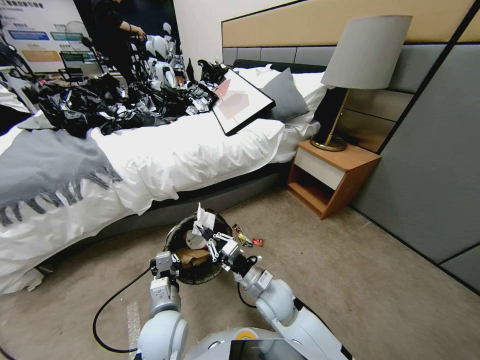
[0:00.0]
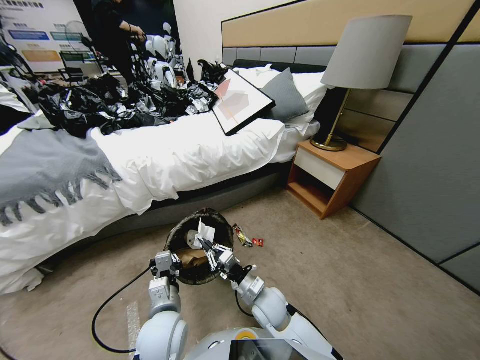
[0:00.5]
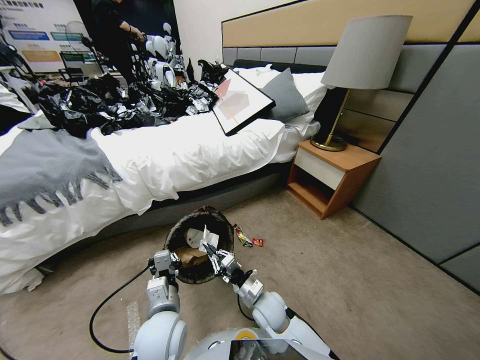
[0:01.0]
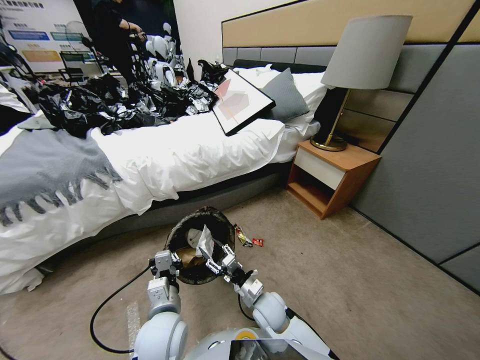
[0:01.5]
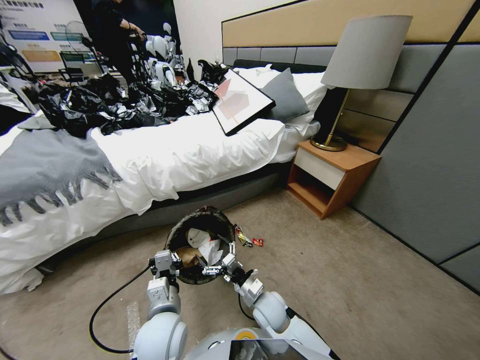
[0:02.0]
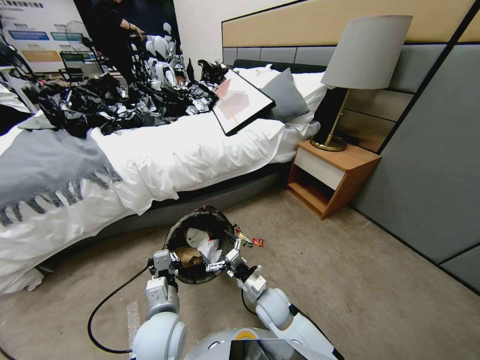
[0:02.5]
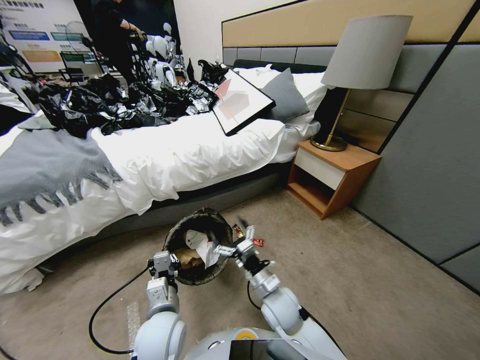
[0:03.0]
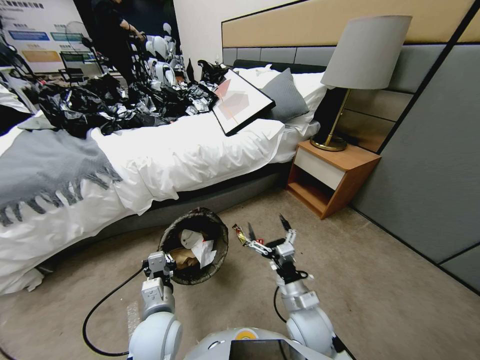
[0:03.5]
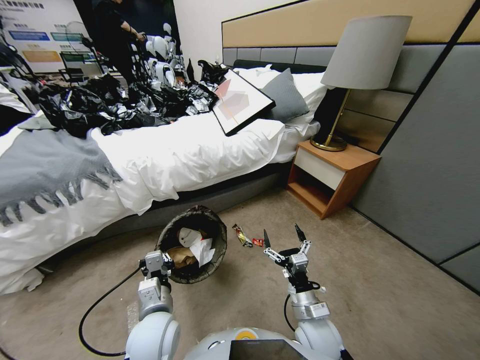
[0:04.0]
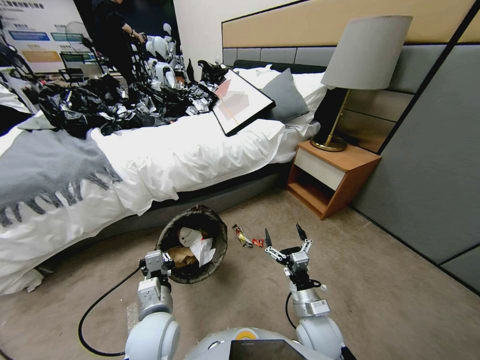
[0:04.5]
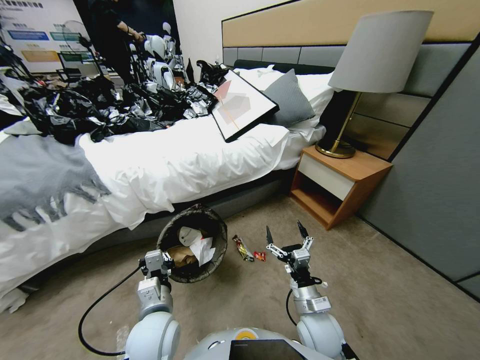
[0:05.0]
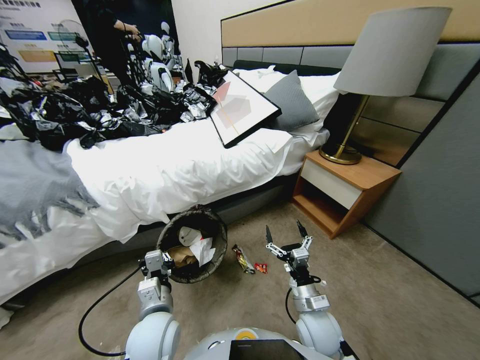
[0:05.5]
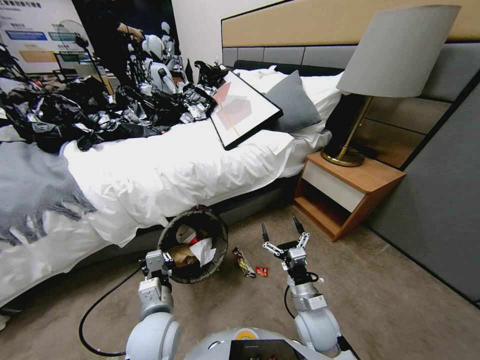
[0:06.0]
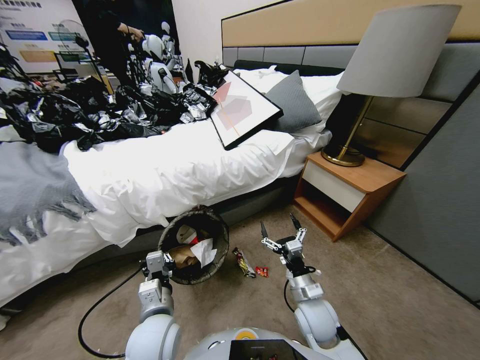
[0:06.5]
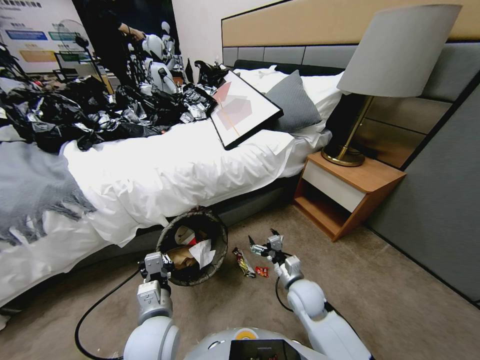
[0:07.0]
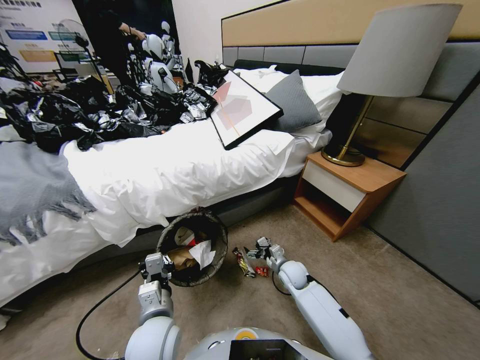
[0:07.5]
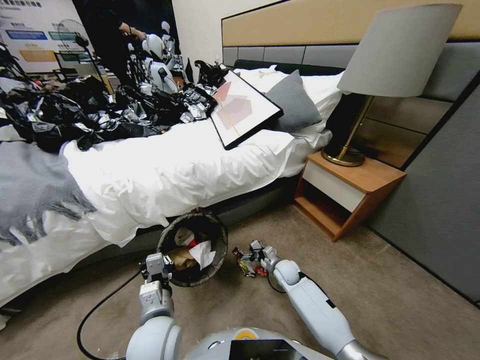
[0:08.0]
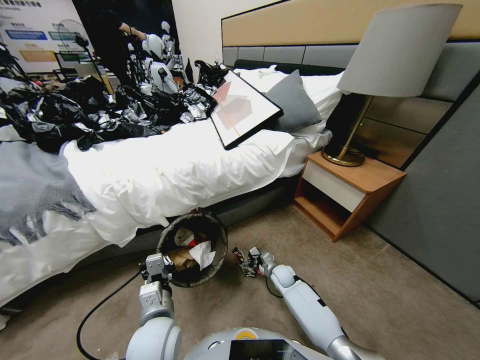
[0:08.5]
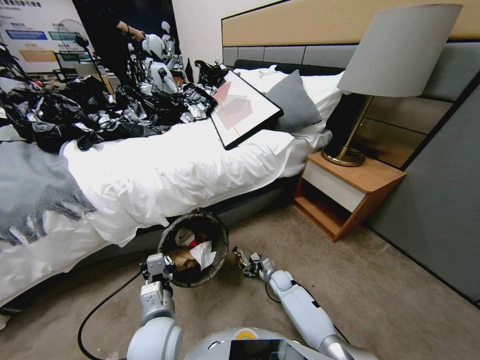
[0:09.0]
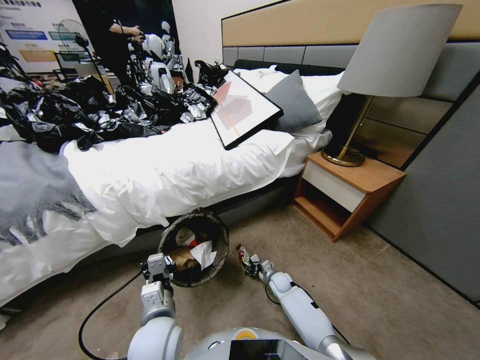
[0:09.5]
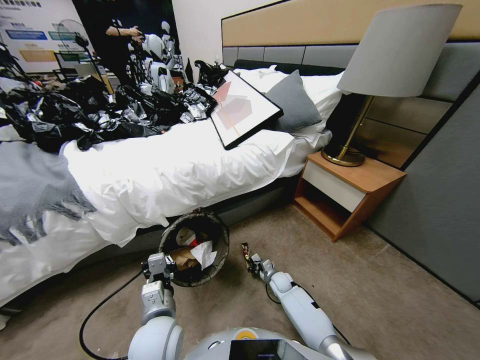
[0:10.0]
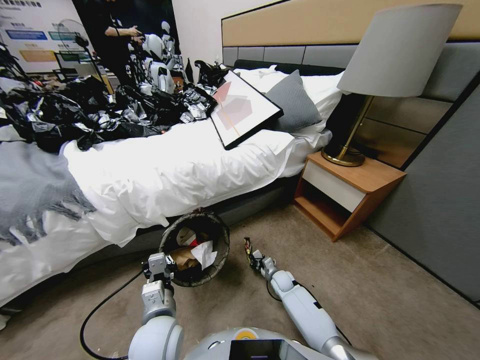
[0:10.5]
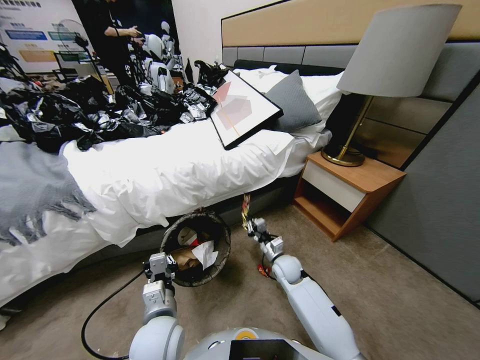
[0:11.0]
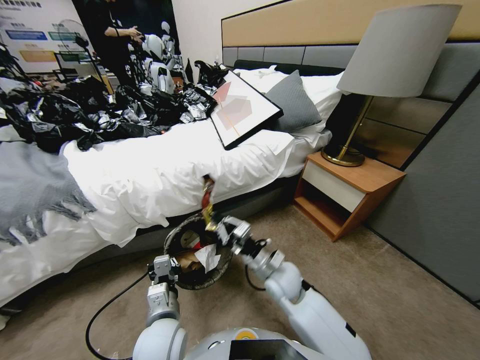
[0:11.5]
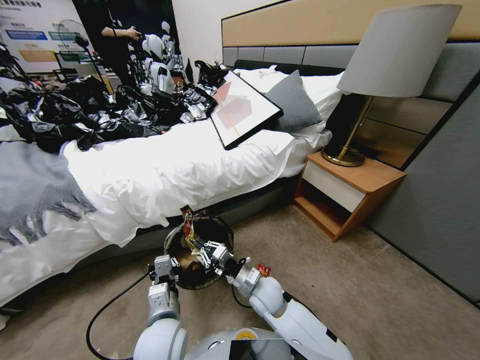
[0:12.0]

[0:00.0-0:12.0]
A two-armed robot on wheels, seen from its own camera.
Task of the whole recording: Pick up the trash bin, then pick up the garbage from the floor and place it into the trash bin.
0:00.0 to 0:02.0: The right gripper goes some 5 cm downward, and opens.
0:02.0 to 0:04.0: The right gripper is displaced to the right, backward and upward by about 15 cm.
0:06.0 to 0:08.0: The right gripper is displaced forward and downward by roughly 20 cm.
0:08.0 to 0:10.0: The right gripper shifts roughly 10 cm downward, and closes up.
0:10.0 to 0:12.0: The right gripper travels upward, to the left and backward by about 25 cm.

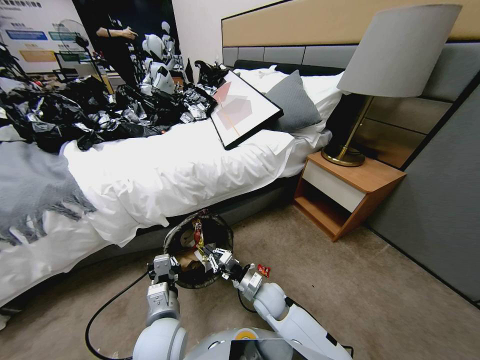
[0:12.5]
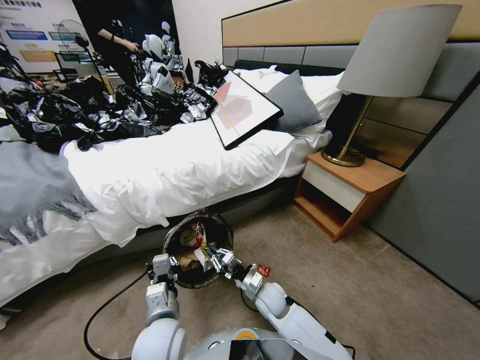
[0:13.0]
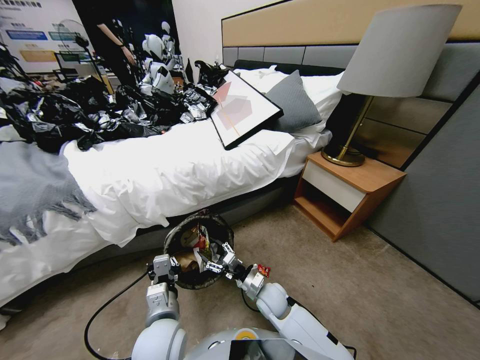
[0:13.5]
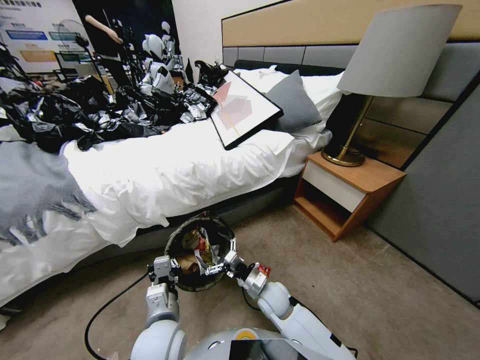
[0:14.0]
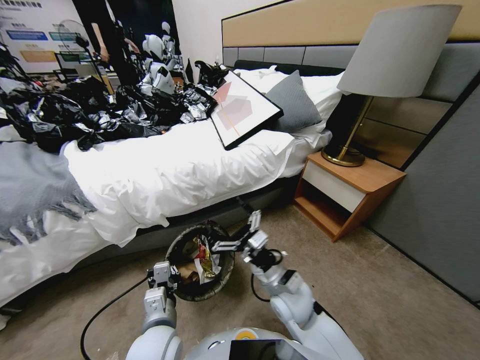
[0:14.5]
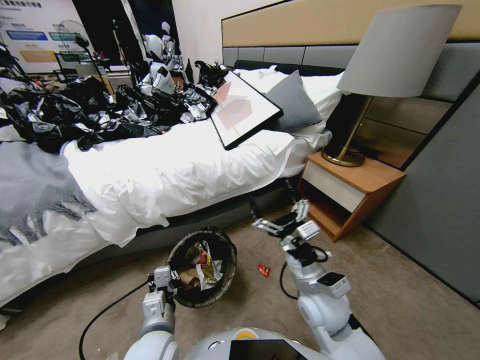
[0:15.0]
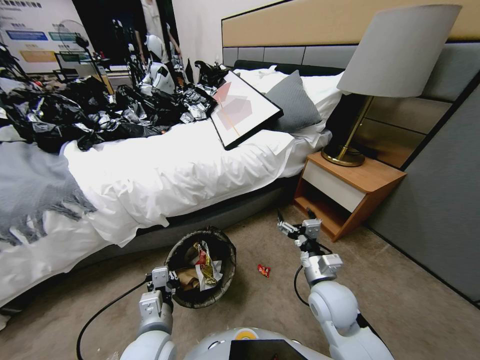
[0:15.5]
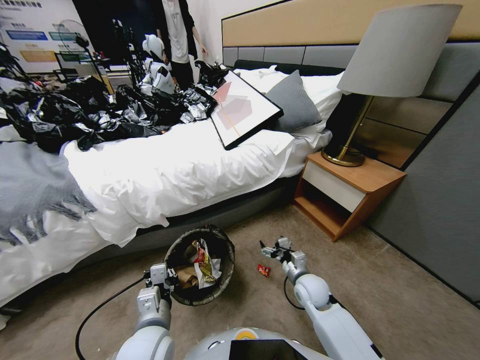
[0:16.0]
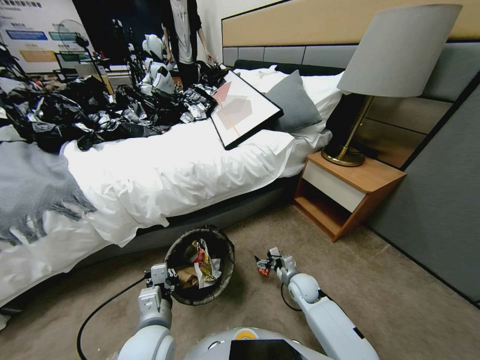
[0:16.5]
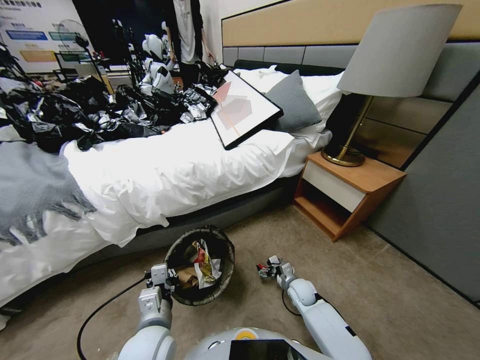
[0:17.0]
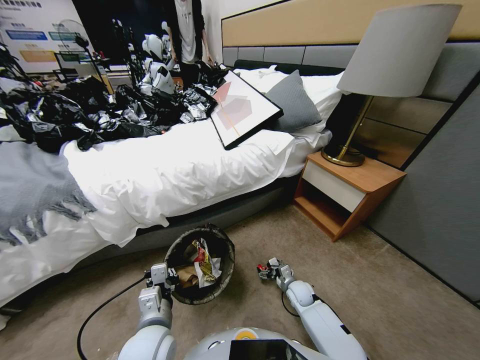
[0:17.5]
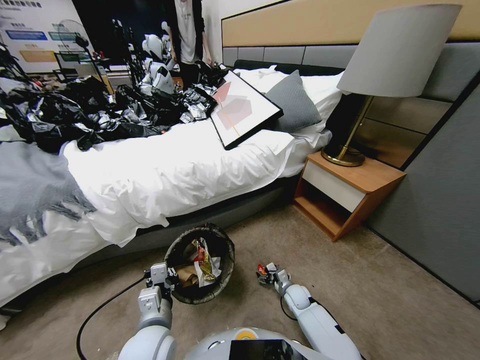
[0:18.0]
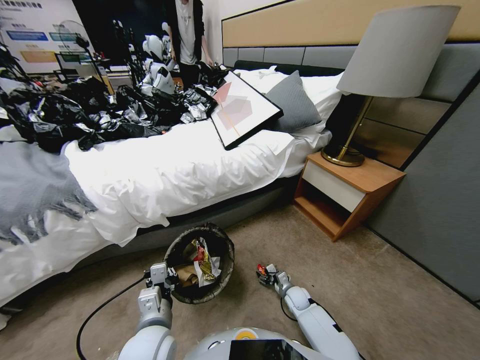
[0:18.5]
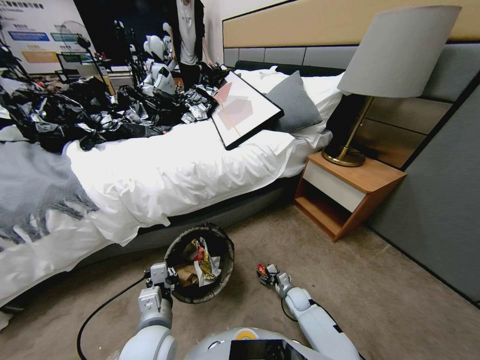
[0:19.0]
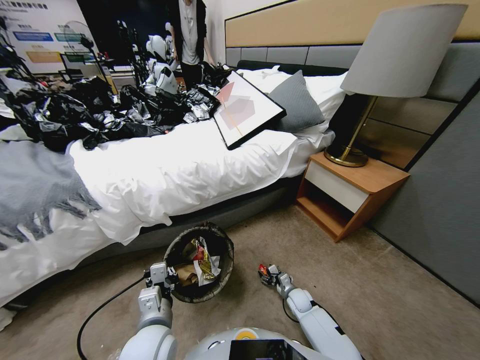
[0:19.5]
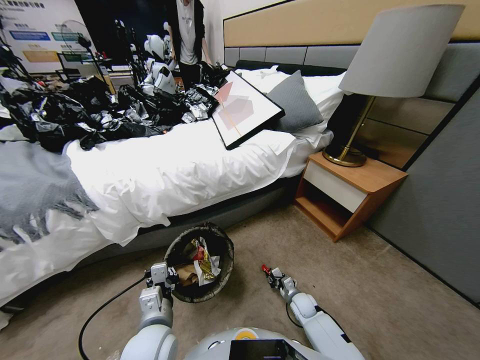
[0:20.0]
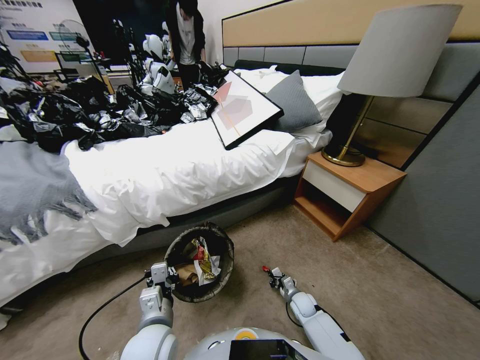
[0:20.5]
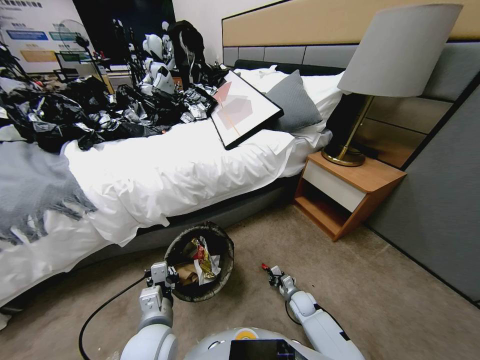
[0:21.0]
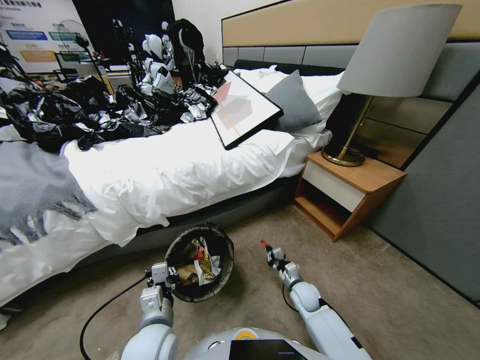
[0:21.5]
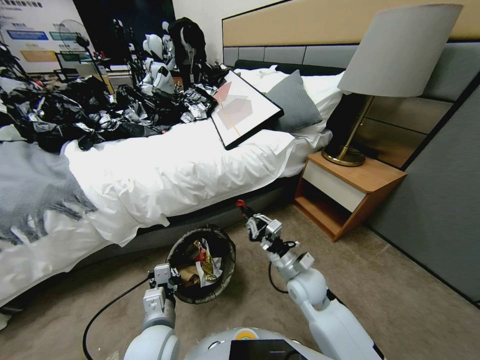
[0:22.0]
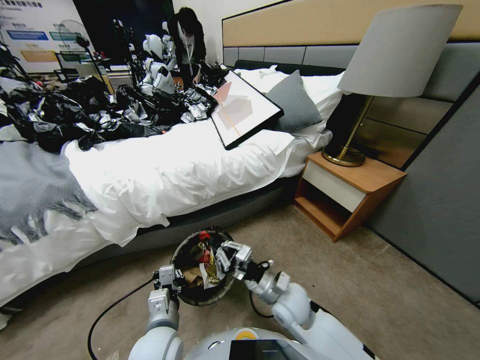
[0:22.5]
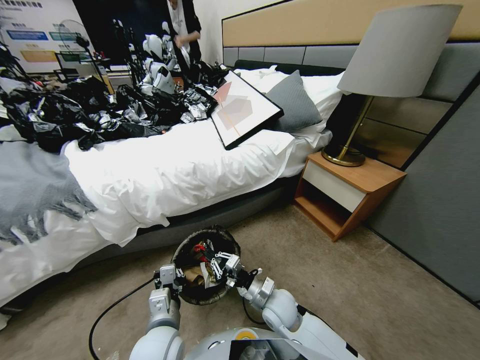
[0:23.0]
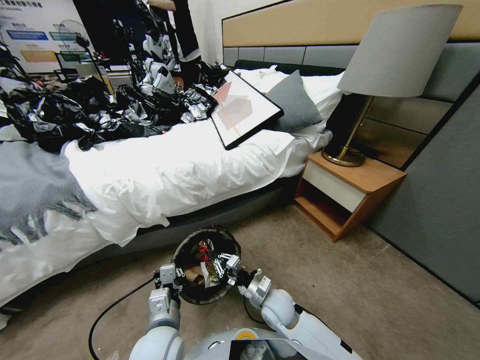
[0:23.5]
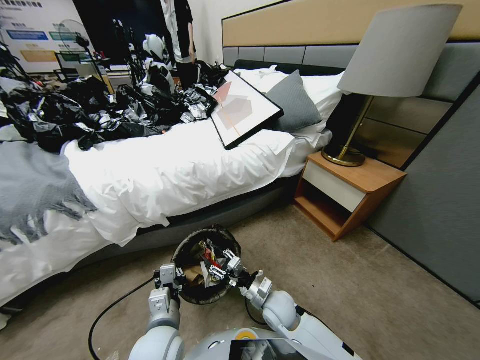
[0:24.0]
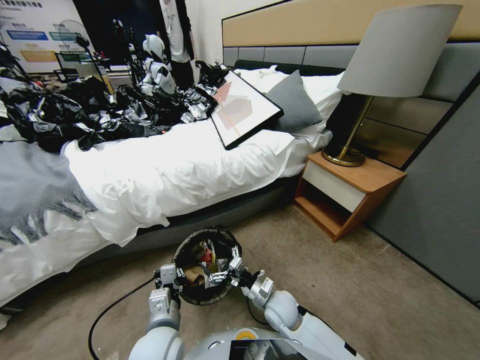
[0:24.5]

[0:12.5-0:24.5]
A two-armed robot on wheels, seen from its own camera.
Task of the whole recording: Pick up the trash bin, then pick up the garbage from the floor and place it into the trash bin.
0:12.5 to 0:14.5: The right gripper moves upward, about 15 cm, and opens its fingers.
0:14.5 to 0:16.5: The right gripper is displaced downward, to the right and forward by roughly 25 cm.
0:16.5 to 0:18.5: The right gripper goes about 10 cm downward.
0:18.5 to 0:20.5: The right gripper closes its fingers.
0:20.5 to 0:22.5: The right gripper heads upward and to the left, covering approximately 25 cm.
0:22.5 to 0:24.5: The right gripper shifts some 5 cm downward, and opens.

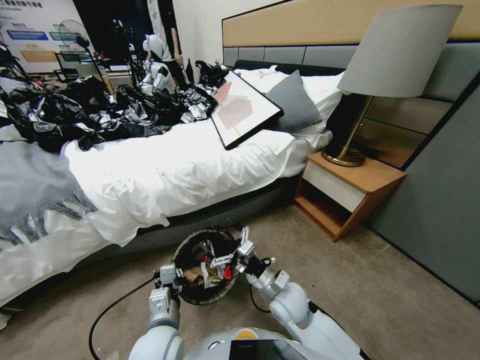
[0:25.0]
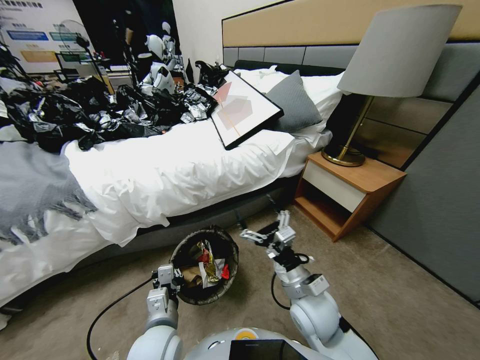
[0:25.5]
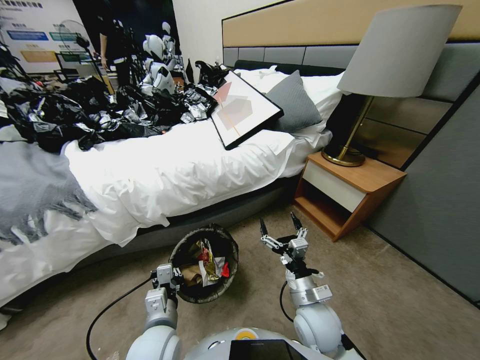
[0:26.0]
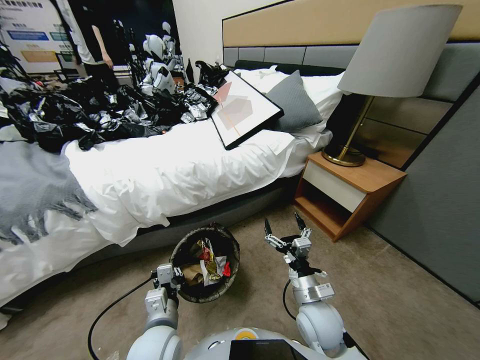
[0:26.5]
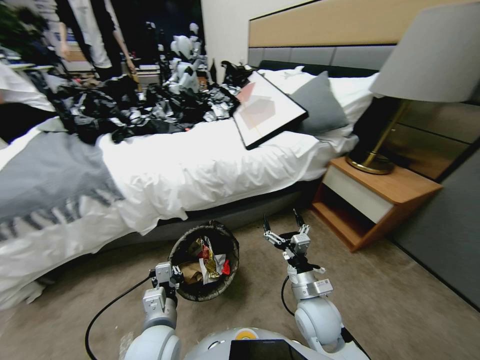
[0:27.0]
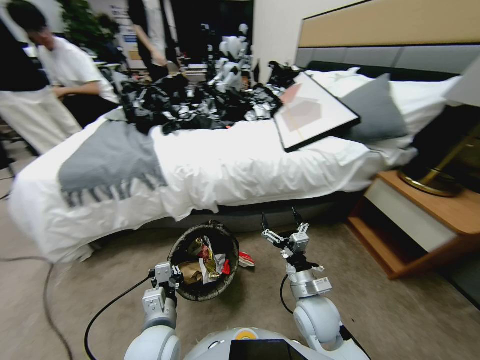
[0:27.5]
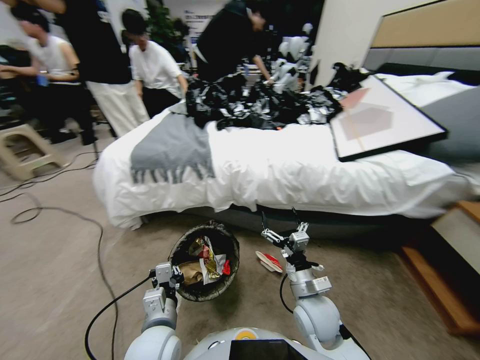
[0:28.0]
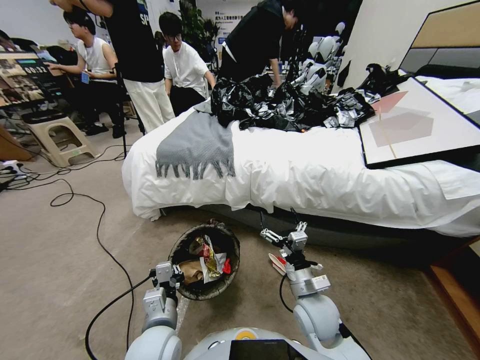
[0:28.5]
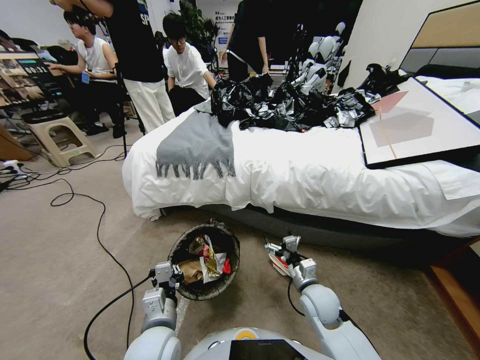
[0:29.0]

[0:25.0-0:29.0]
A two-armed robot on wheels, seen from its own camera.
Task of the whole recording: Pick up the trash bin, then pick up the garbage from the floor and place it into the trash bin.
0:25.0 to 0:27.0: The right gripper travels to the right by roughly 5 cm.
0:27.0 to 0:29.0: The right gripper is displaced downward by roughly 10 cm.
